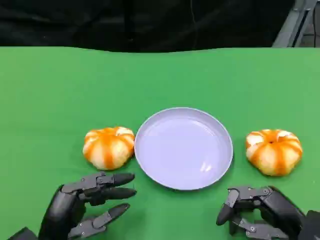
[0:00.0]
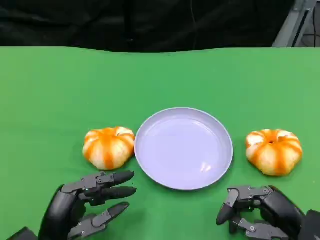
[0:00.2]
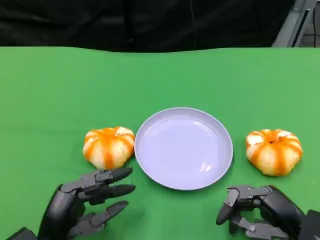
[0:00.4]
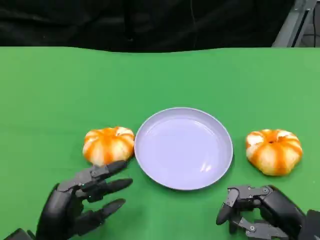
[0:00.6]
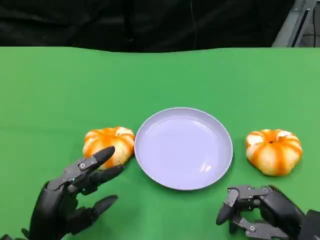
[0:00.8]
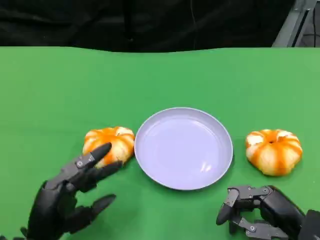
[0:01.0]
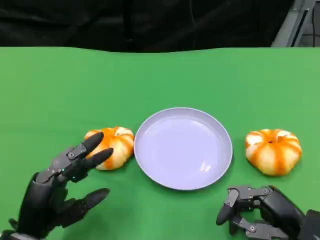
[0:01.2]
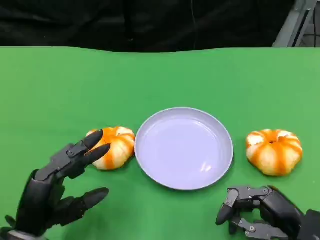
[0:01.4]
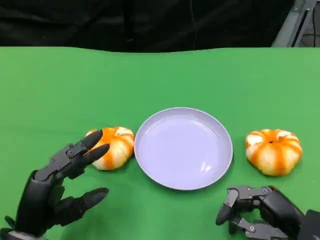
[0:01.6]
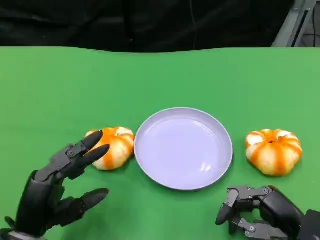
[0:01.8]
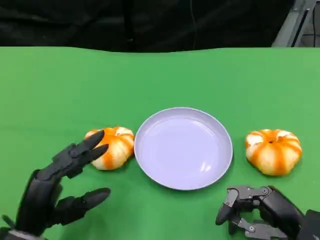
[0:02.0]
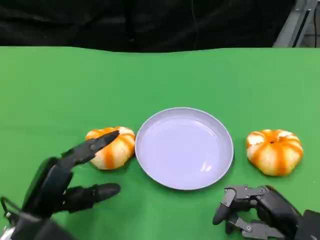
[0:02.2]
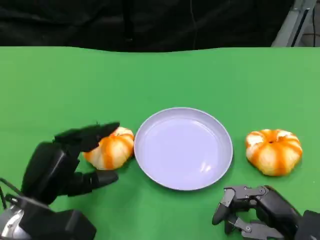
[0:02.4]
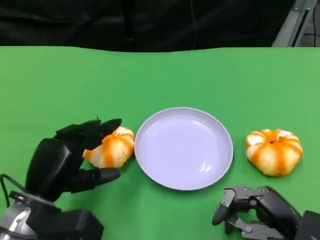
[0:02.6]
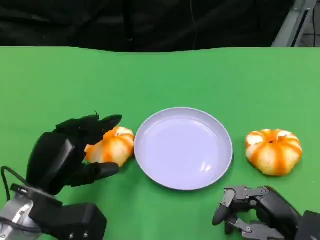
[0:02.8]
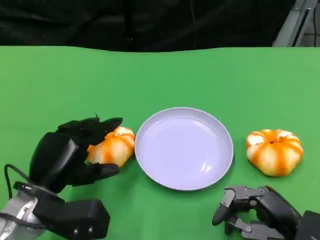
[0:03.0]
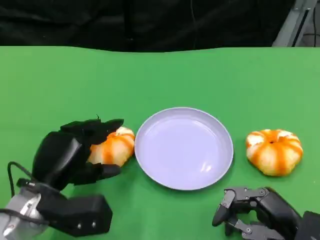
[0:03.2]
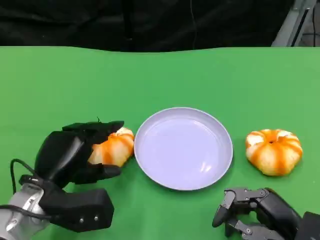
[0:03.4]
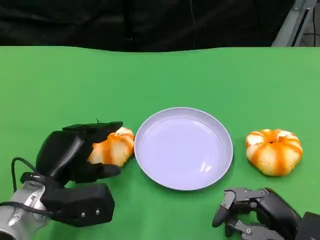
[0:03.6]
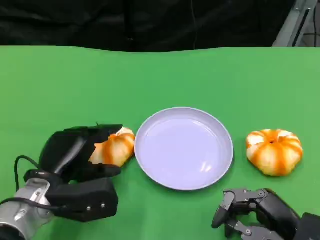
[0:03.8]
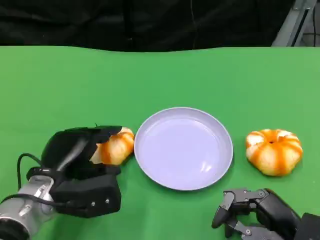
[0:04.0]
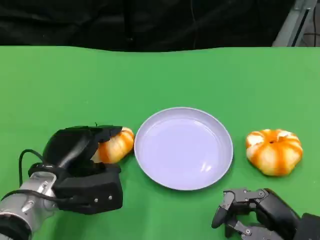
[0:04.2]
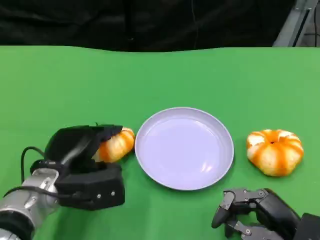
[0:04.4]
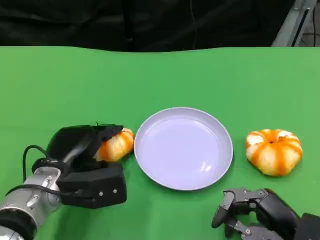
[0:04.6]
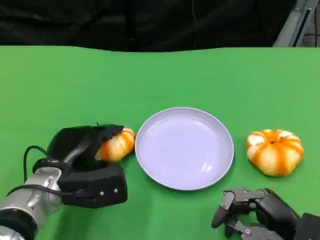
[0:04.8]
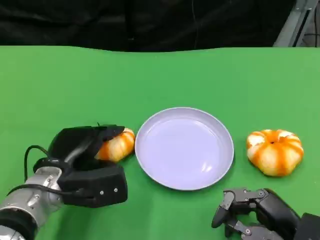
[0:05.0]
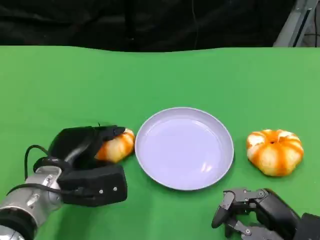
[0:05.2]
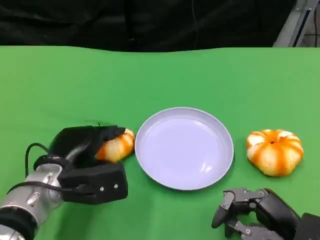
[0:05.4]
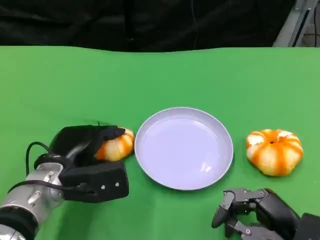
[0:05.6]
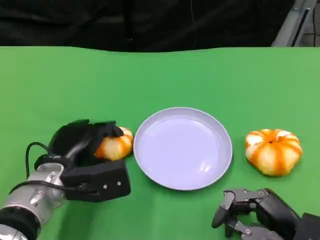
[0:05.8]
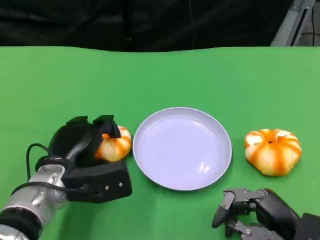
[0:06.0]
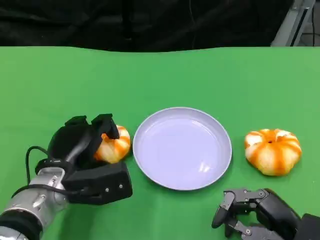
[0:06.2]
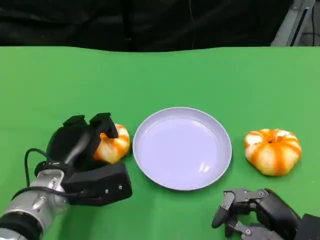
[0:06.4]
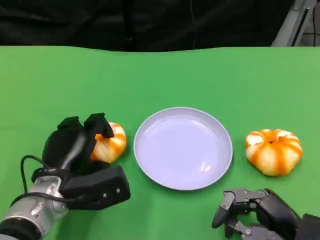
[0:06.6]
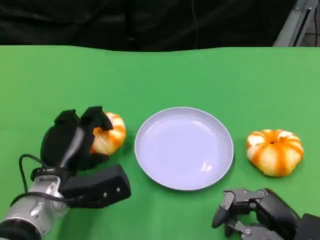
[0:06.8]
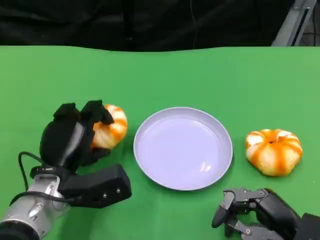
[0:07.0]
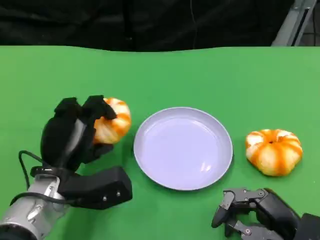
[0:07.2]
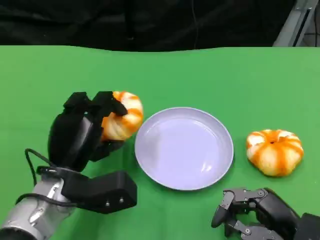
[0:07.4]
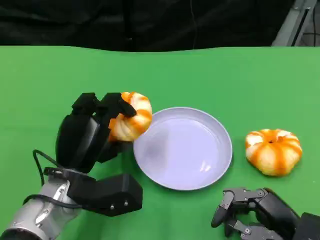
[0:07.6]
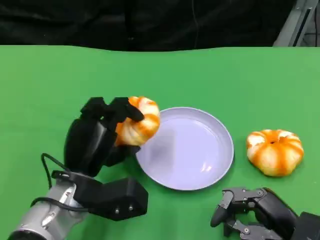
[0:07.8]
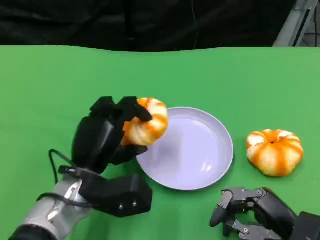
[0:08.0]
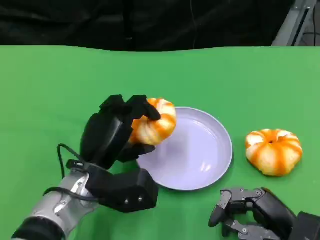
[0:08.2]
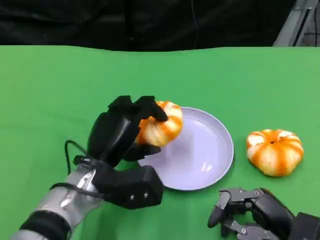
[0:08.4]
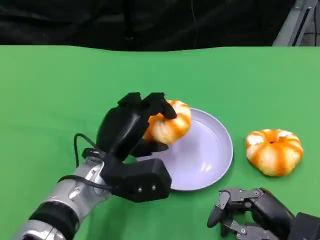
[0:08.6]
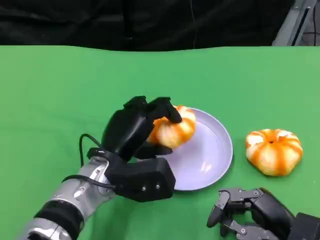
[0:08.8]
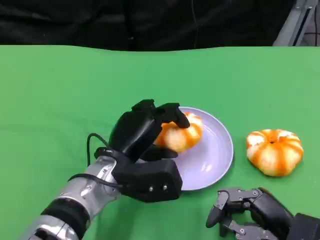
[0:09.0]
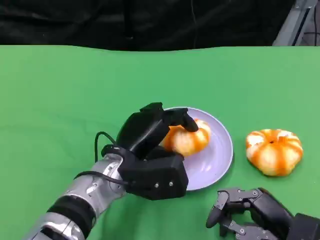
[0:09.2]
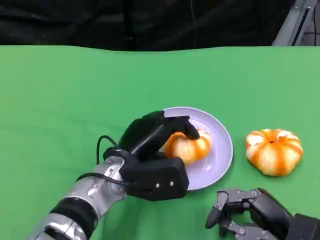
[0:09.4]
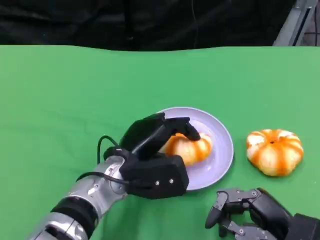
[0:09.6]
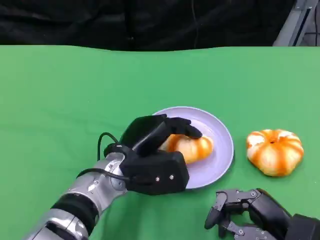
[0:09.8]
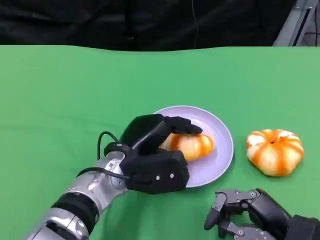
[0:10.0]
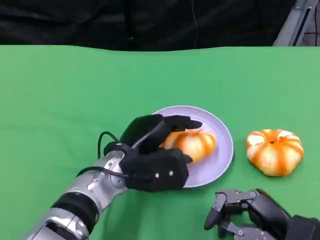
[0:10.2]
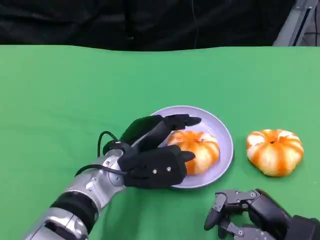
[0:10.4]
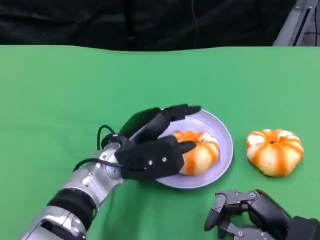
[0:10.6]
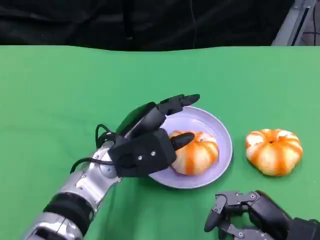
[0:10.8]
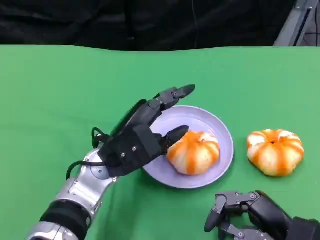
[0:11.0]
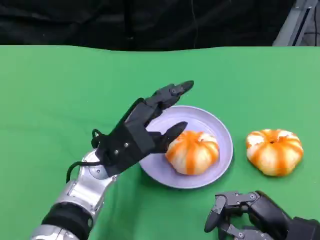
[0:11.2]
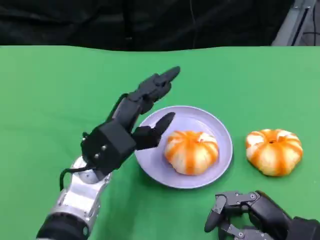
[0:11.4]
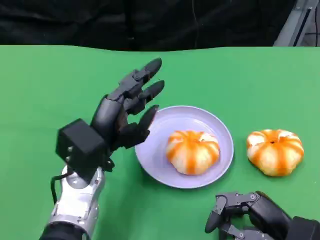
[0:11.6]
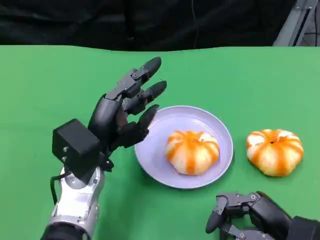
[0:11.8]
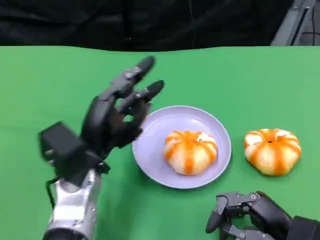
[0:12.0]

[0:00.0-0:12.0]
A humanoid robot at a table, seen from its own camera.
Task of the whole recording: Grasp the bread from the table and place it into the plate.
0:00.0 to 0:01.6: There are only small adjustments of the hands.
0:01.6 to 0:03.0: The left hand travels forward by some 5 cm.
0:04.4 to 0:06.0: Both hands stay put.
0:07.6 to 0:09.0: The left hand travels to the right by approximately 5 cm.
0:09.0 to 0:10.4: The hands stay close to where they were, moving slightly.
0:10.4 to 0:12.0: The left hand travels to the left by roughly 5 cm.

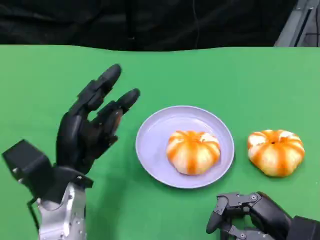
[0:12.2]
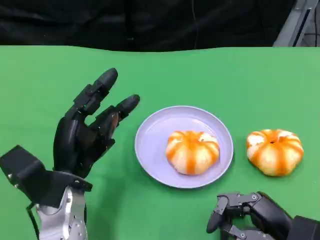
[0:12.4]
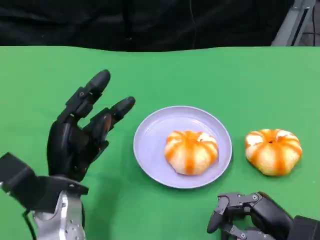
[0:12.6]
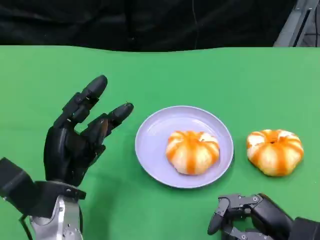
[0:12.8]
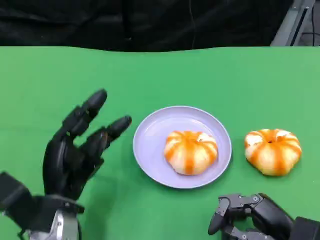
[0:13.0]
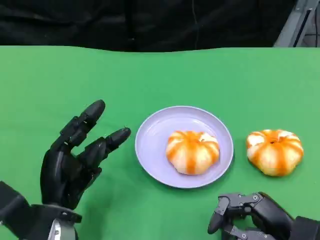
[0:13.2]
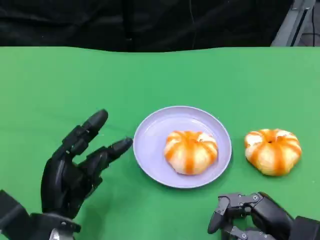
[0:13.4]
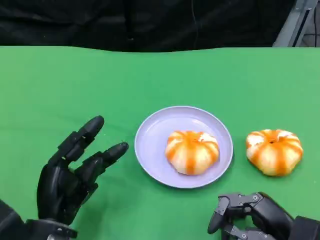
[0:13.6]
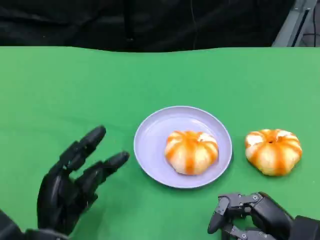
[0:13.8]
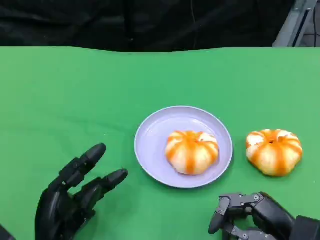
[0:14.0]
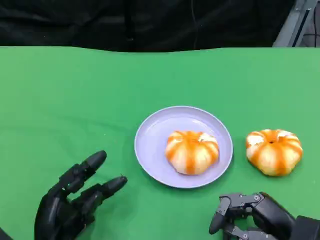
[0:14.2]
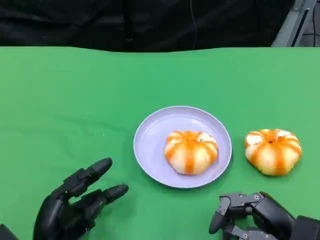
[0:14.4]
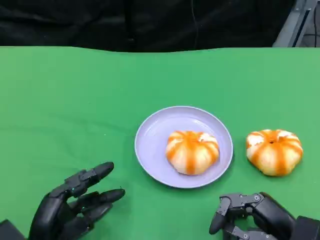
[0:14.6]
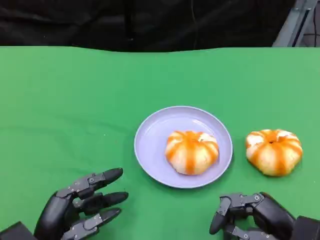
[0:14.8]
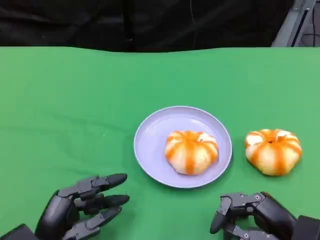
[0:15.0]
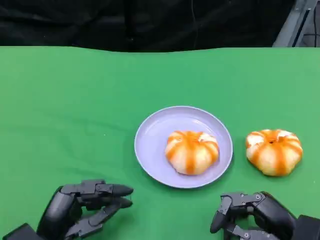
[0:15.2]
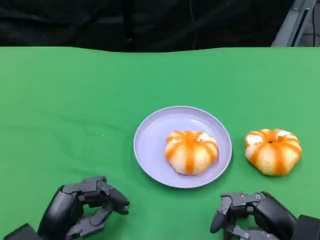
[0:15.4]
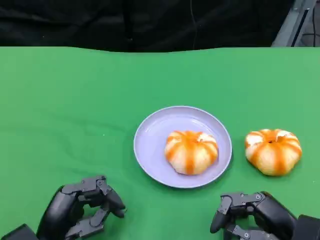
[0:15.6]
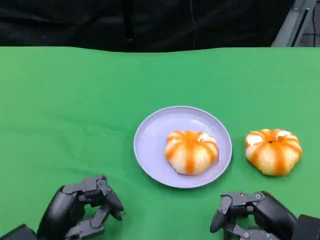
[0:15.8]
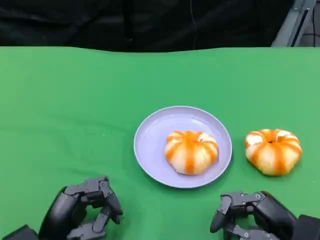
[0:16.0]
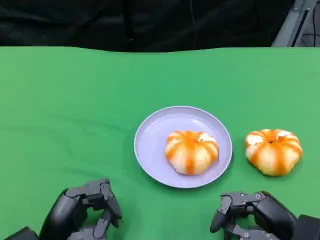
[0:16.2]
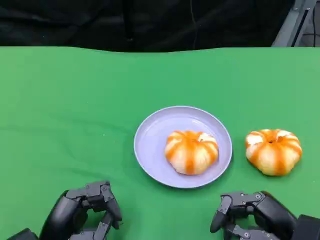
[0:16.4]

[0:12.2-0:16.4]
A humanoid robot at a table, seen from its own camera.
Task of the whole recording: Grasp the bread from the table and place it into the plate.
0:12.2 to 0:13.6: The left hand is displaced backward by approximately 5 cm.
0:15.0 to 0:16.4: The hands move only a little.

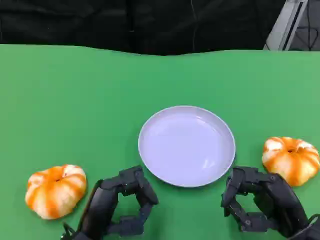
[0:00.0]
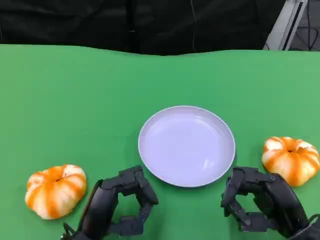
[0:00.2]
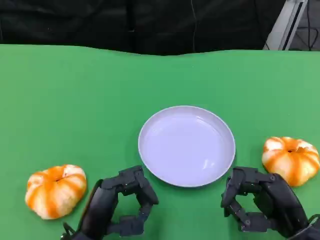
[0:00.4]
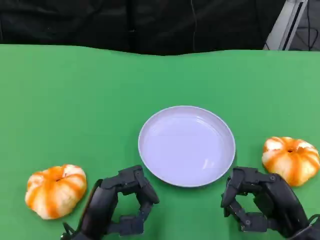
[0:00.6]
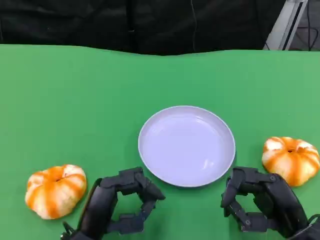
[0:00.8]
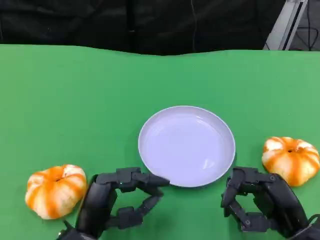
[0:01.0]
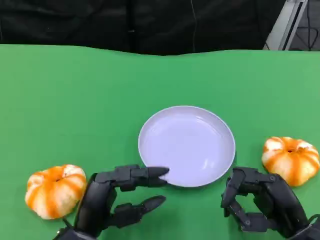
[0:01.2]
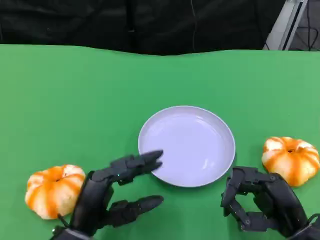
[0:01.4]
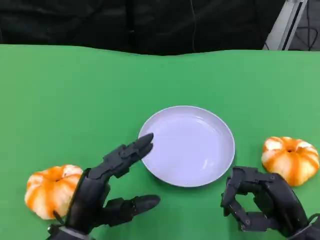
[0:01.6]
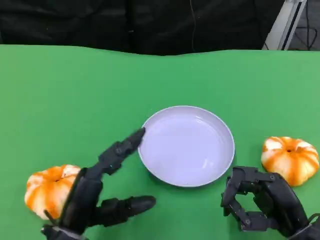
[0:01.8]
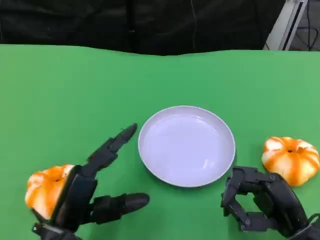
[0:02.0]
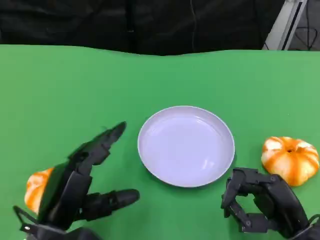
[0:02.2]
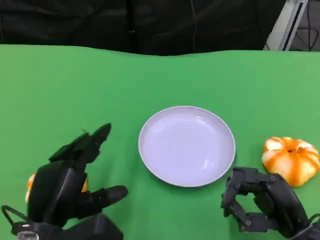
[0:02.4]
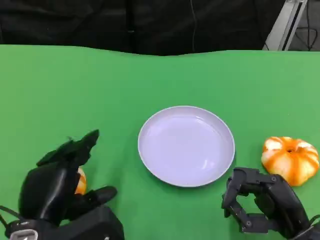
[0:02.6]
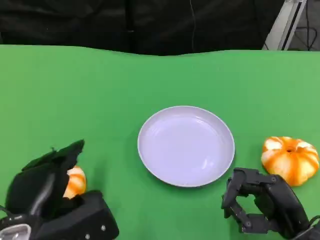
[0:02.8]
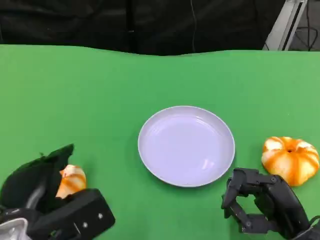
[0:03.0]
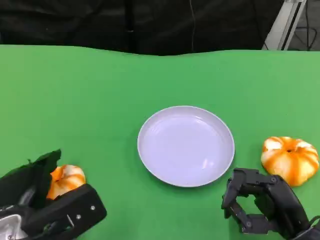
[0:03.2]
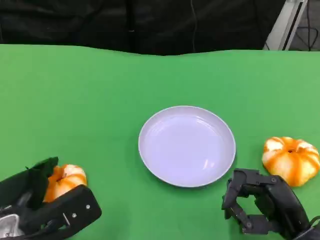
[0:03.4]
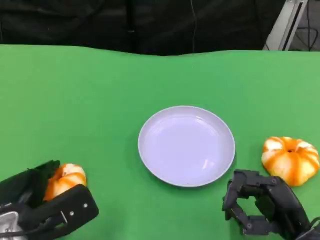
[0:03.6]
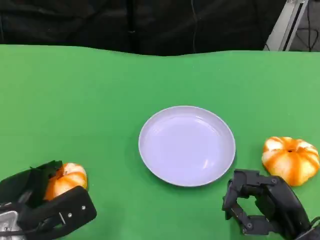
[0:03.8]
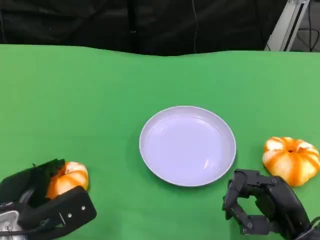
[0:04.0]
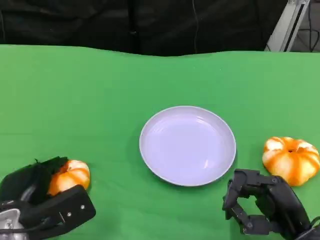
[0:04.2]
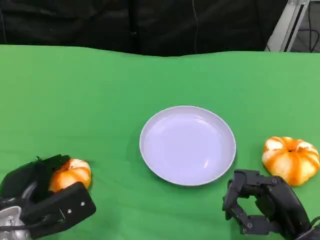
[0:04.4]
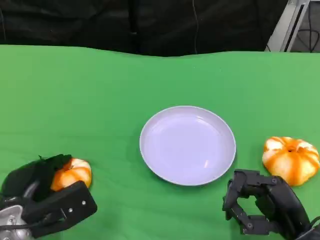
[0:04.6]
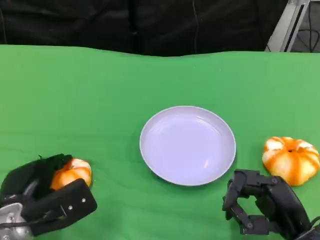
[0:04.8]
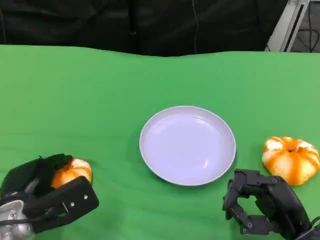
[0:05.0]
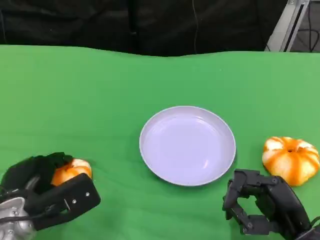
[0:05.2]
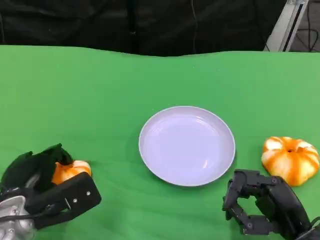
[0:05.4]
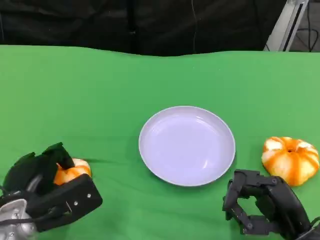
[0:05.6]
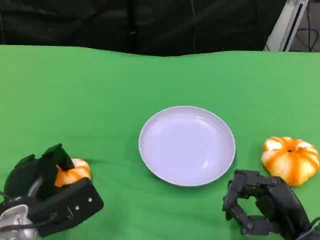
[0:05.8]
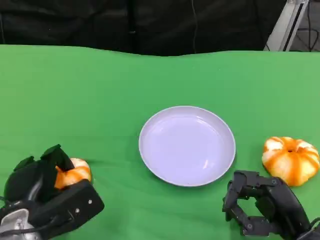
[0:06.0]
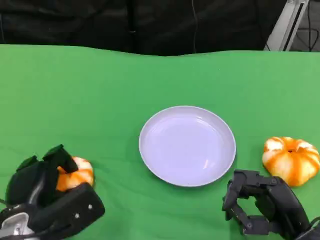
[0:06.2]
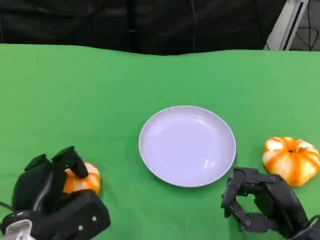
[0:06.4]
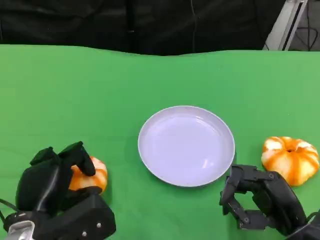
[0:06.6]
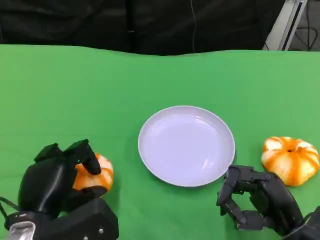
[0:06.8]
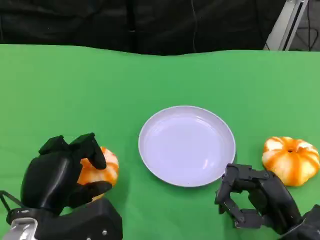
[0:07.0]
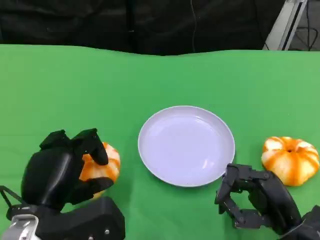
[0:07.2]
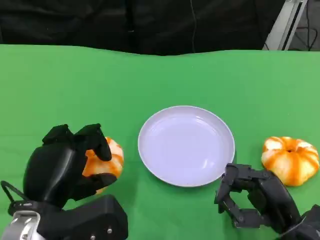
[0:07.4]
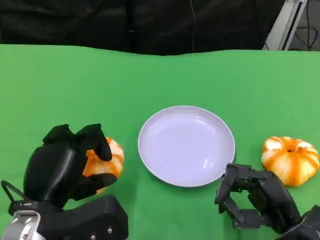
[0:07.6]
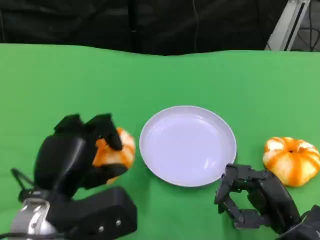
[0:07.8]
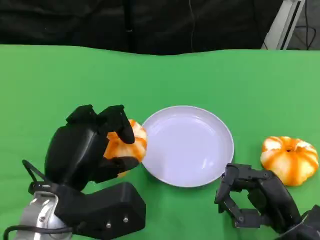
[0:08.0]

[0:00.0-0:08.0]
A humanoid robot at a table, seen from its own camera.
Task of the whole recording: Grasp the bread from the table and place it into the plate.
0:00.0 to 0:01.6: The hands move only a little.
0:01.6 to 0:03.2: The left hand is displaced to the left by approximately 5 cm.
0:03.2 to 0:04.8: The left hand shifts by about 5 cm.
0:04.8 to 0:06.4: The hands move only a little.
0:06.4 to 0:08.0: The left hand heads upward, covering about 5 cm.
